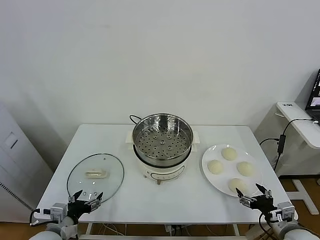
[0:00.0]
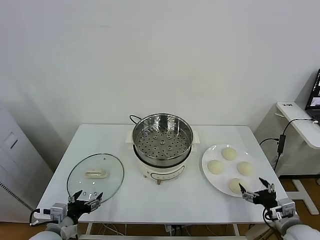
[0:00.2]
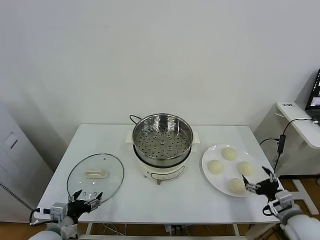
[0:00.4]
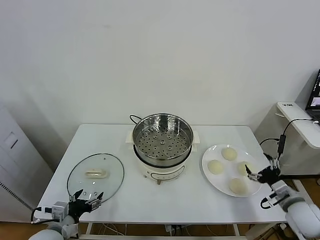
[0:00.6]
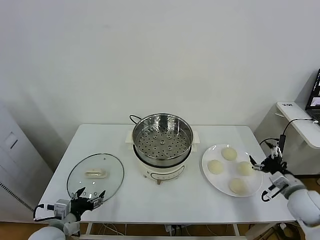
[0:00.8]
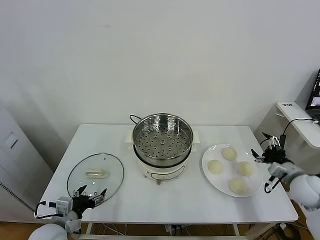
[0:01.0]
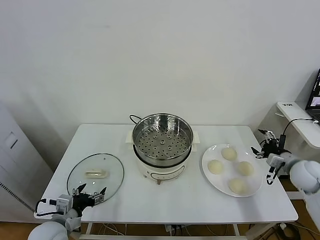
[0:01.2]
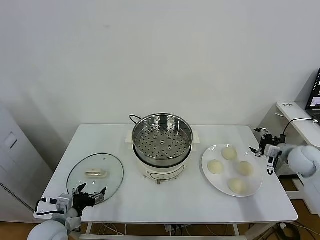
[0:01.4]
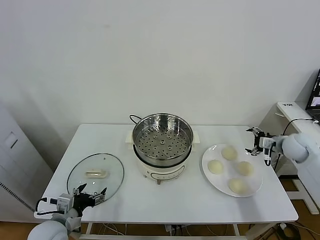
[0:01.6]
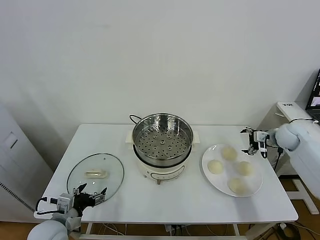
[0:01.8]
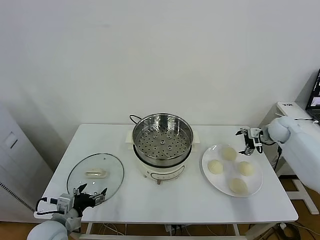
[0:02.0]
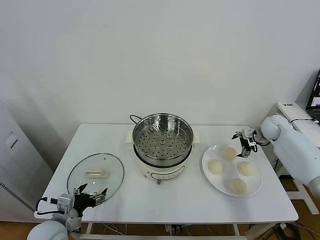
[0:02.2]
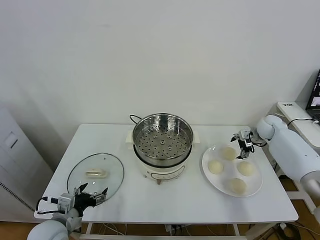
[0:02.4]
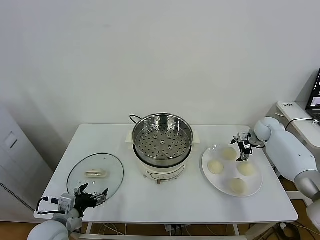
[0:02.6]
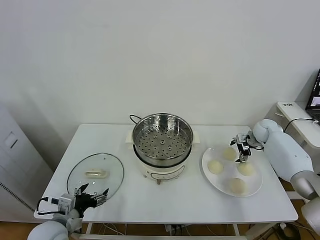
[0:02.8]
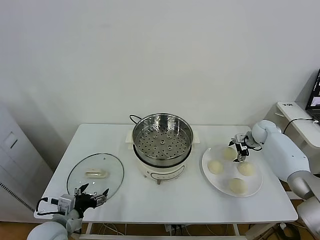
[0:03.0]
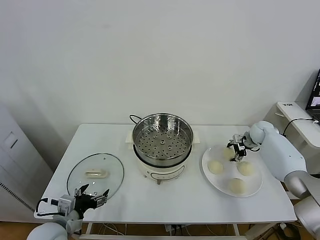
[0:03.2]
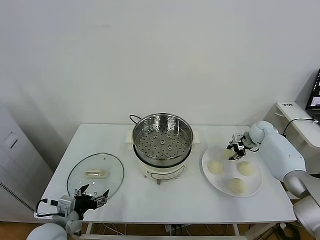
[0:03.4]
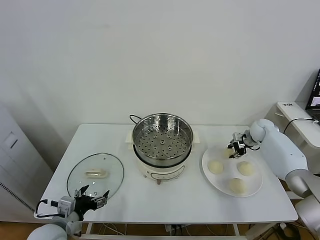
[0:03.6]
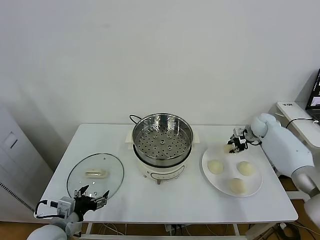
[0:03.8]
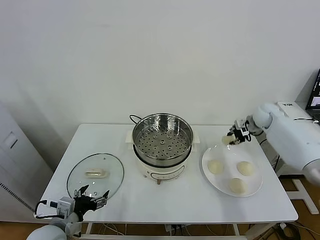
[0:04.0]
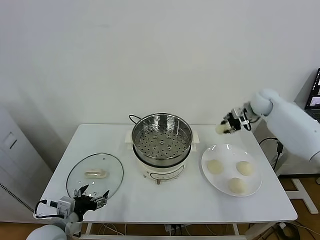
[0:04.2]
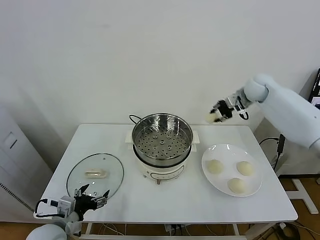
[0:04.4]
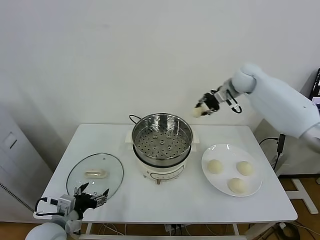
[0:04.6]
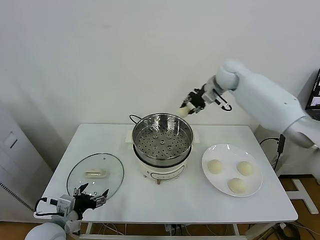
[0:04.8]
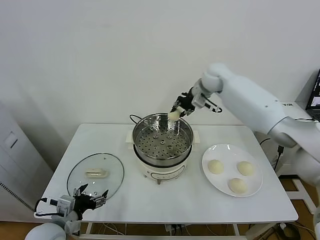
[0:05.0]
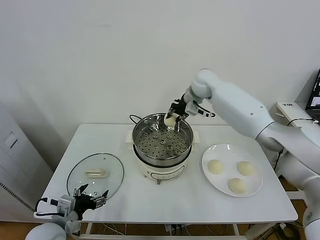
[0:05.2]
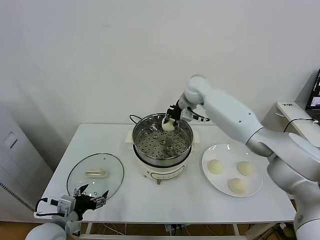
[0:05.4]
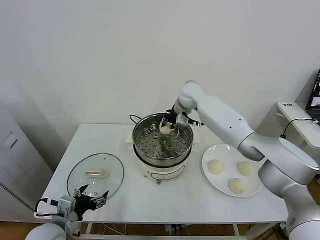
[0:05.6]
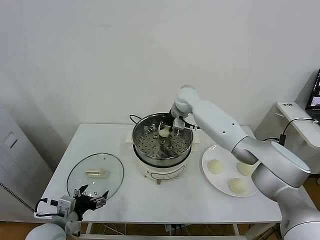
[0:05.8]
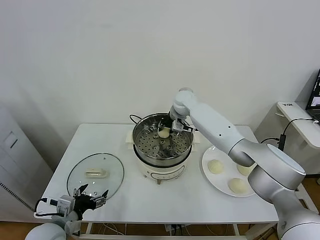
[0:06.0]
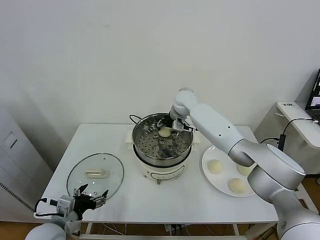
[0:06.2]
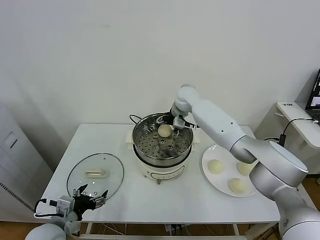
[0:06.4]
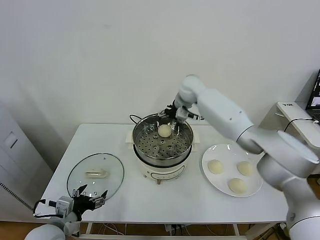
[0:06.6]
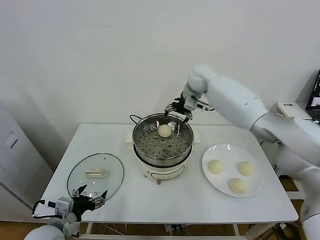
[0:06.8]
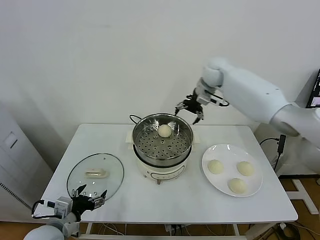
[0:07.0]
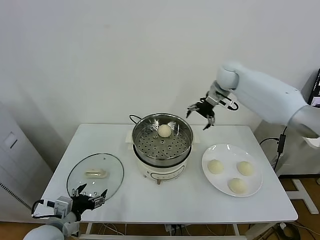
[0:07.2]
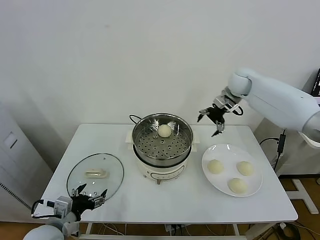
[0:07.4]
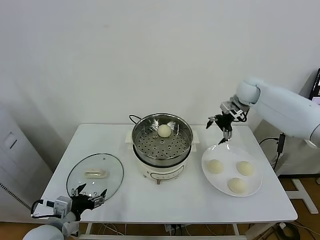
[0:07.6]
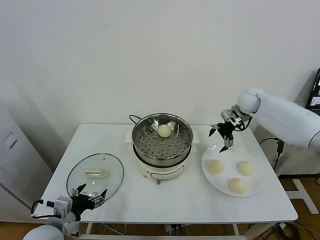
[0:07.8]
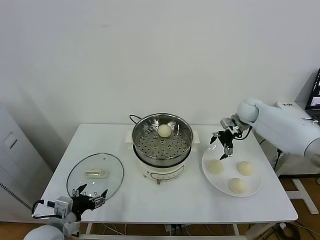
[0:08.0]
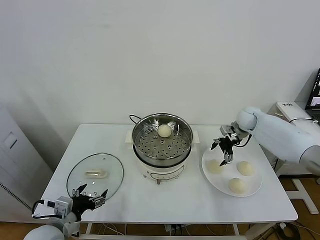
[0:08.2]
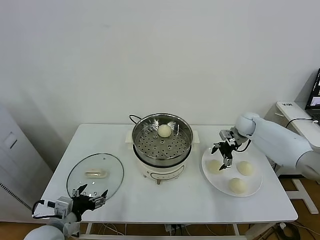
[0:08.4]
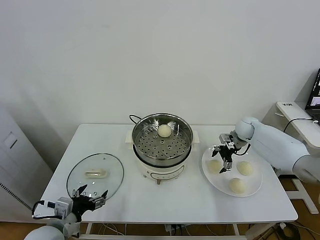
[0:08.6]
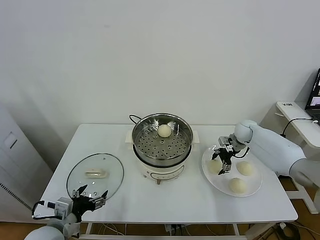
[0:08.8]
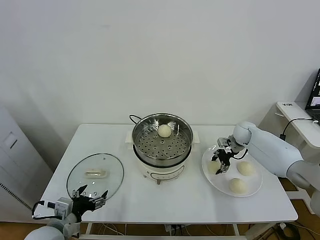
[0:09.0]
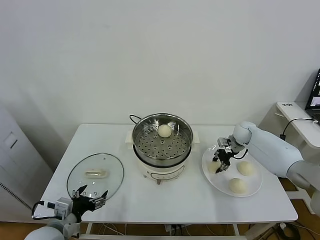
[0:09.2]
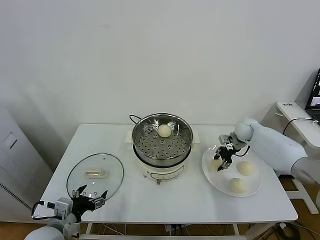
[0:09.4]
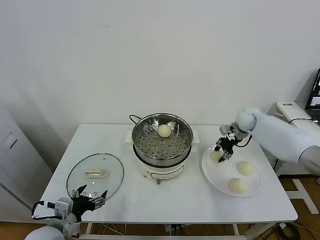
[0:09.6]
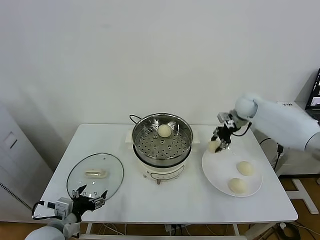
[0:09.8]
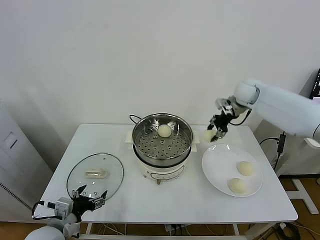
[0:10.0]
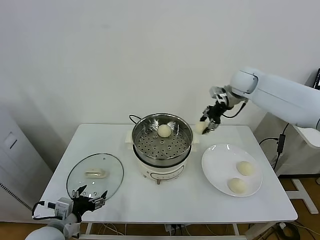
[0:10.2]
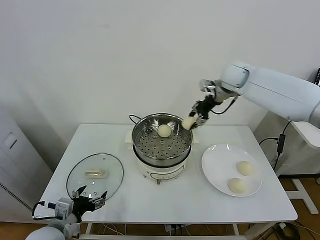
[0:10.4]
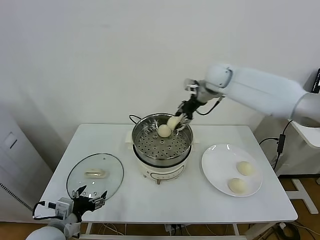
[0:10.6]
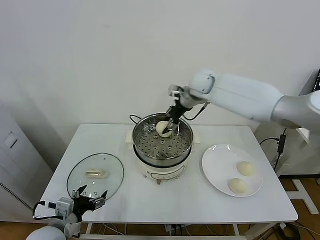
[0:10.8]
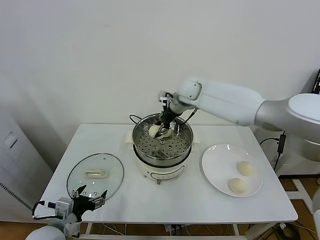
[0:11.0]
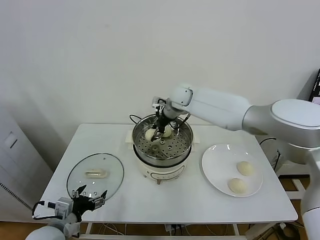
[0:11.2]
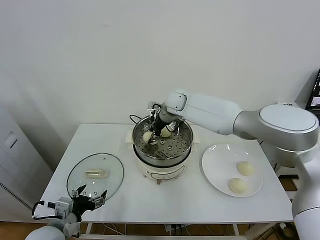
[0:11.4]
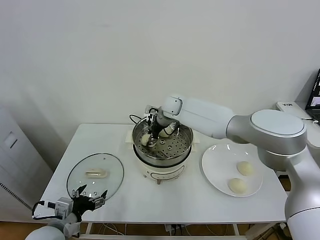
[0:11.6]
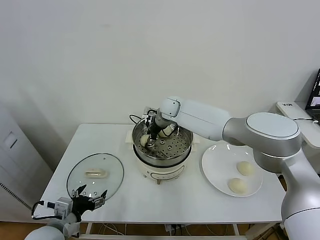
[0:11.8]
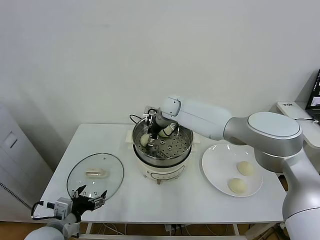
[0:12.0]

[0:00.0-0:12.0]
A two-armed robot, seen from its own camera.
Task of the whole recording: take steamed baozi put them in steamer.
Step, 0:00.0 to 0:03.2: Grasp the baozi in the plate with right gripper.
Step, 0:03.4 to 0:06.2: Place the baozi on the steamer with right gripper.
Step, 0:06.6 to 0:09.0: Grasp the baozi in the plate with right gripper.
0:01.6 to 0:03.0: The right gripper heads forward and downward, covering about 15 cm.
0:03.0 to 0:04.4: The right gripper goes about 25 cm upward and to the left, and closes.
0:04.4 to 0:06.0: The right gripper is displaced to the left by some 25 cm.
0:06.0 to 0:07.6: The right gripper shifts roughly 25 cm to the right, and opens its fingers.
0:07.6 to 0:09.0: The right gripper goes some 20 cm downward, and closes.
0:09.0 to 0:10.4: The right gripper travels upward and to the left by approximately 30 cm.
0:10.4 to 0:12.0: The right gripper is displaced to the left and downward by some 25 cm, and opens its fingers.

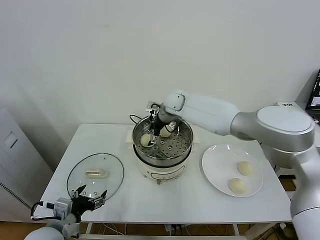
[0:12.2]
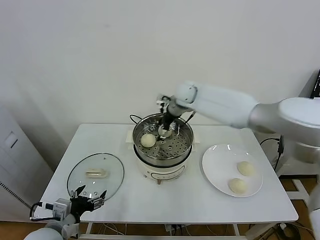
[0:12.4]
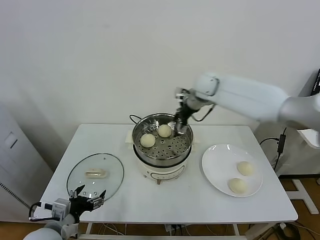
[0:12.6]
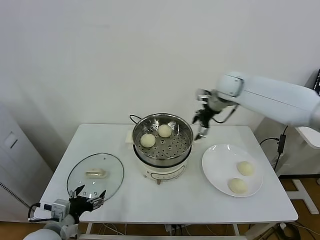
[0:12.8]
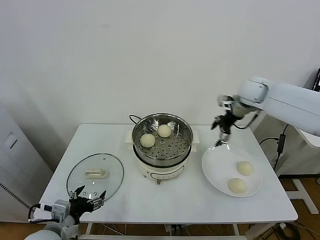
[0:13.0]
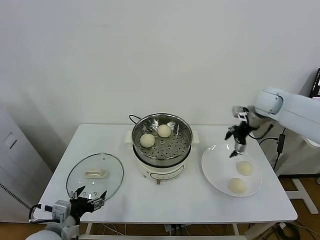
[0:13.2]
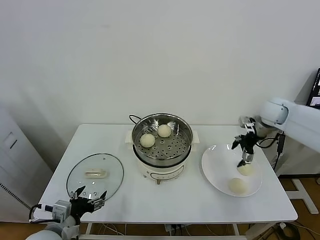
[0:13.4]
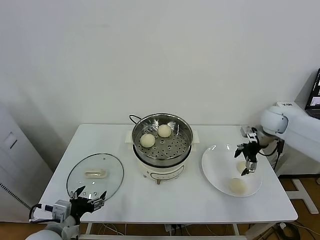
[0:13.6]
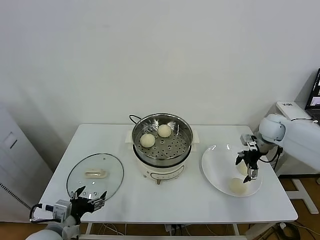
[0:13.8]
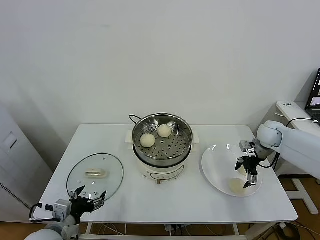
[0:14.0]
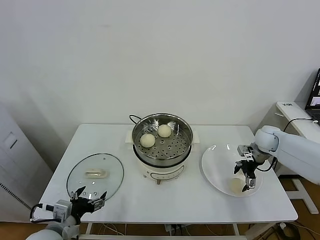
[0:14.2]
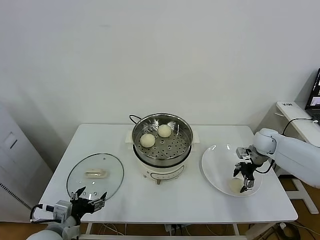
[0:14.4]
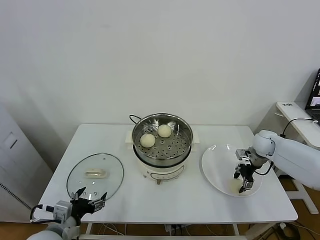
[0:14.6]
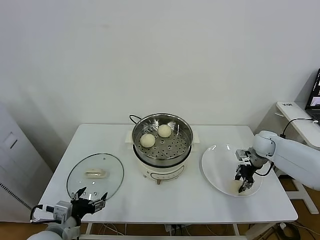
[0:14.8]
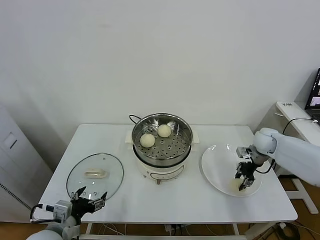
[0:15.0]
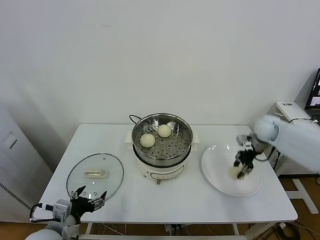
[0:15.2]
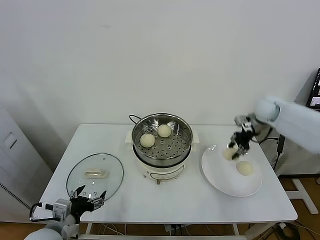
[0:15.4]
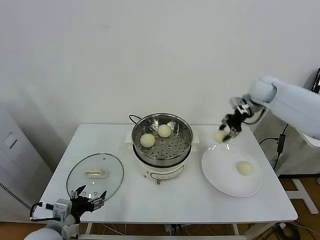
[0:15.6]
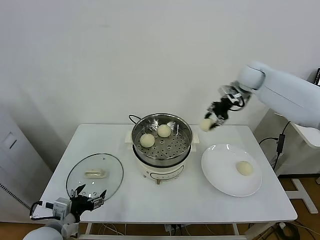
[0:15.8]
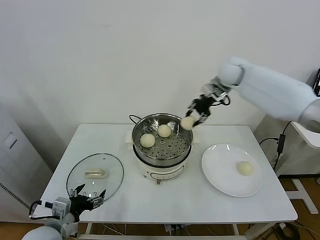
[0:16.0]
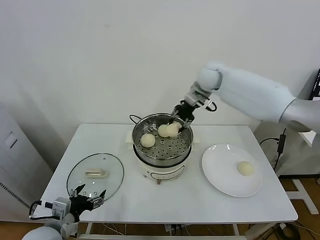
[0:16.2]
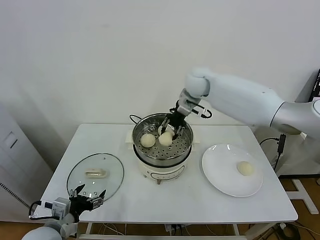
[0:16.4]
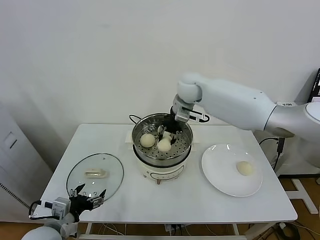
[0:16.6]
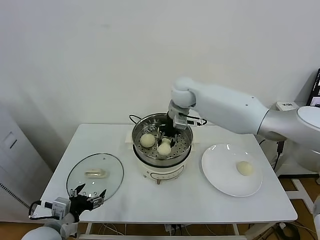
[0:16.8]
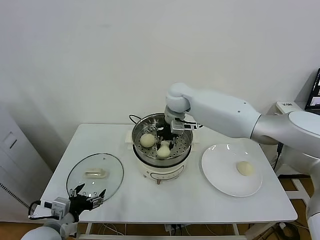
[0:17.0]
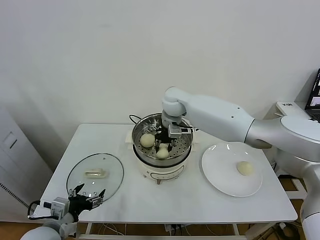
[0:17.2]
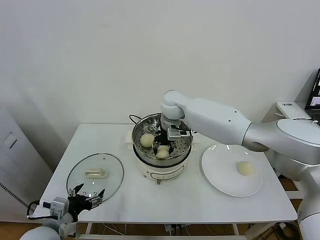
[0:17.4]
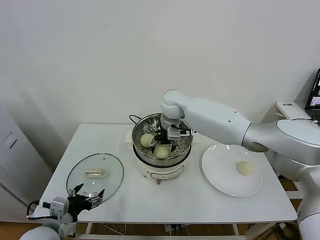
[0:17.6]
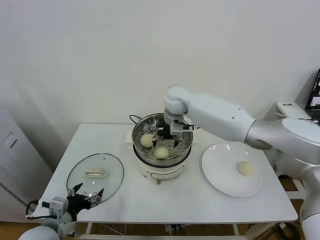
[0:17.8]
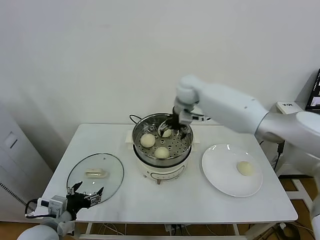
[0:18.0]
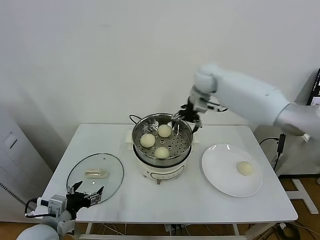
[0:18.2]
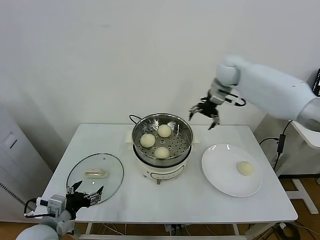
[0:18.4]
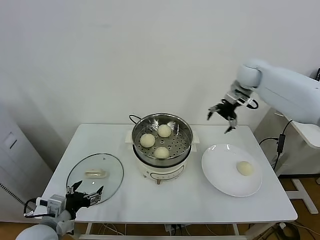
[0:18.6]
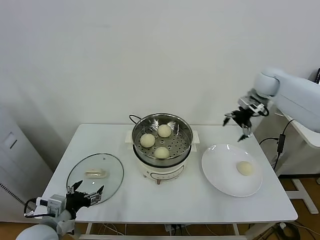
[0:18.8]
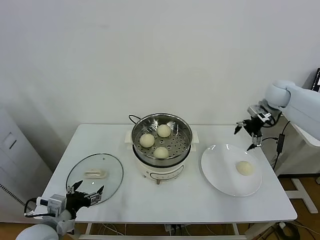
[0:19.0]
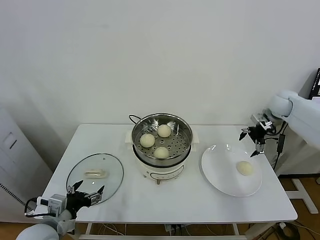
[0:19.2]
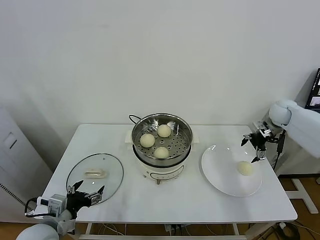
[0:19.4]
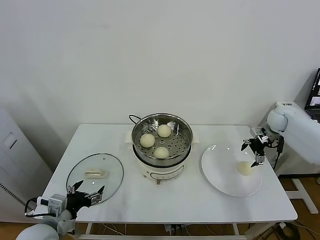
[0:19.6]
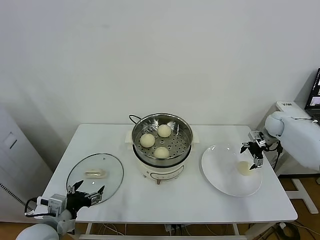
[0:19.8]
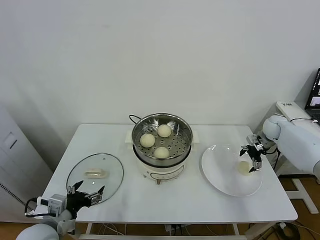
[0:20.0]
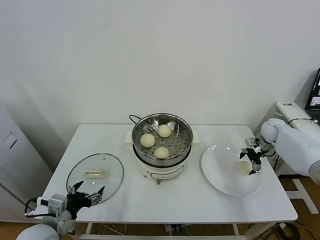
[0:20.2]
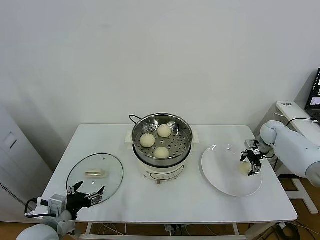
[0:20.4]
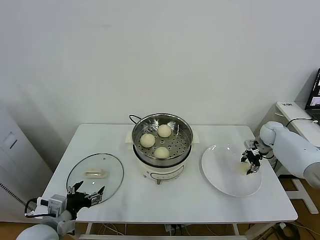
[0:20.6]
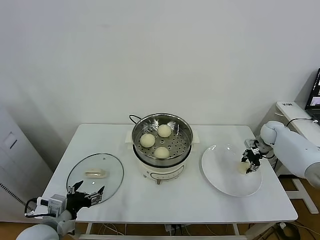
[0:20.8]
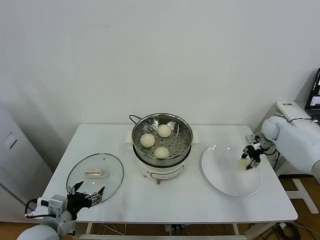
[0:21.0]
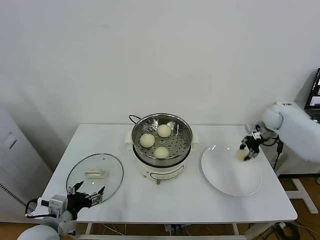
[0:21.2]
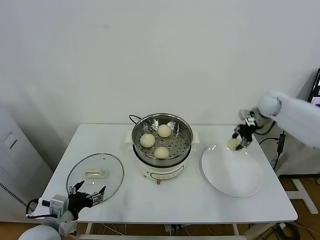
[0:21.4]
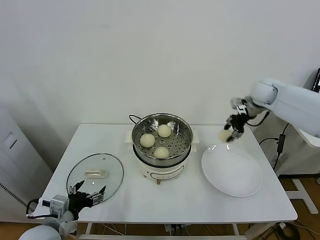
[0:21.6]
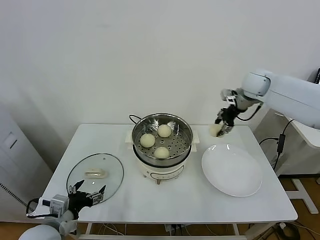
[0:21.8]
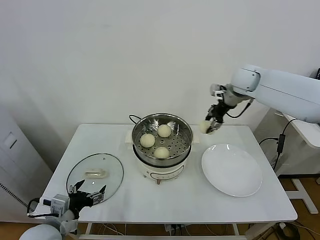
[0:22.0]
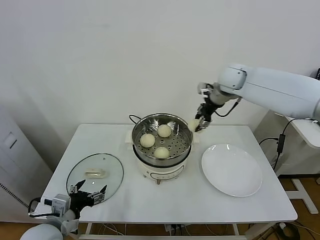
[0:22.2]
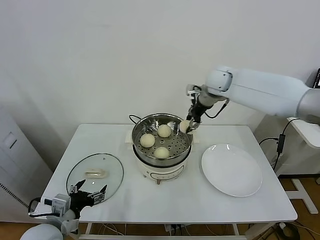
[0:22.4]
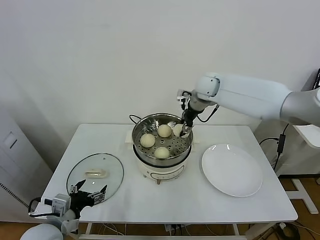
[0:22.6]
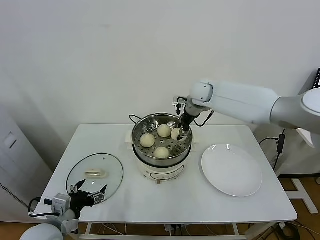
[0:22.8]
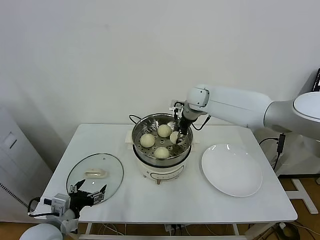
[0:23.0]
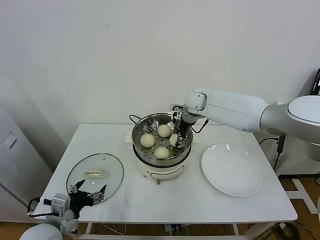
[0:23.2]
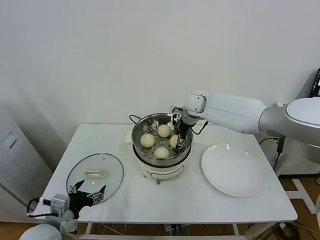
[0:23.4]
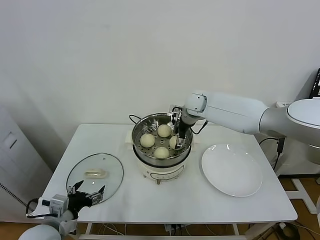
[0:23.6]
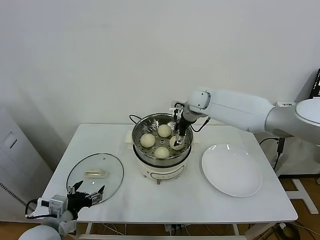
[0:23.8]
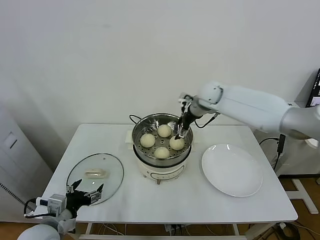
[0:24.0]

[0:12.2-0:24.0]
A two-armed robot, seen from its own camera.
Task of the whole recording: take steamed baozi put them in steamer.
Step, 0:12.4 to 0:14.6: Grasp the baozi in the plate with right gripper.
Step, 0:14.8 to 0:17.6: Place the baozi on the steamer with right gripper.
Step, 0:17.8 to 0:20.4: Grasp the baozi in the plate with right gripper.
Step, 0:20.8 to 0:23.6: Place the baozi on the steamer with right gripper.
0:12.2 to 0:13.6: The right gripper moves to the right, some 35 cm.
0:13.6 to 0:15.2: The right gripper is displaced downward by roughly 5 cm, and closes up.
0:15.2 to 0:16.6: The right gripper heads to the left and upward, covering about 35 cm.
0:16.6 to 0:18.2: The right gripper moves to the right, some 5 cm, and opens.
0:18.2 to 0:19.6: The right gripper heads to the right and downward, covering some 35 cm.
0:19.6 to 0:21.0: The right gripper heads downward, covering approximately 5 cm, and closes.
0:21.0 to 0:22.6: The right gripper heads to the left and upward, covering some 35 cm.
0:22.6 to 0:24.0: The right gripper opens up.
